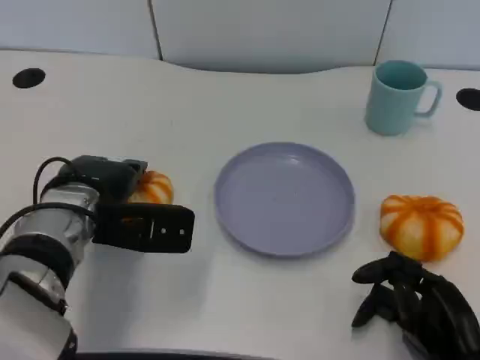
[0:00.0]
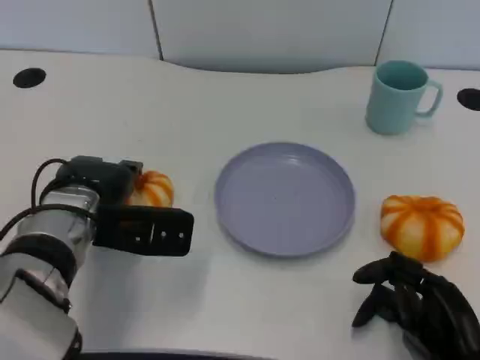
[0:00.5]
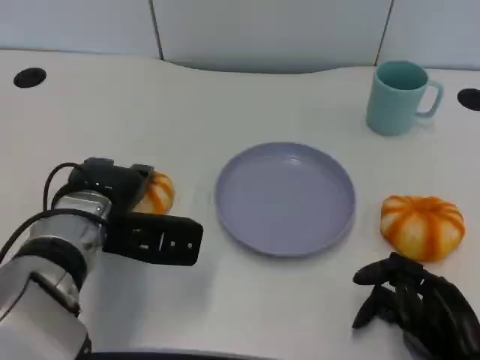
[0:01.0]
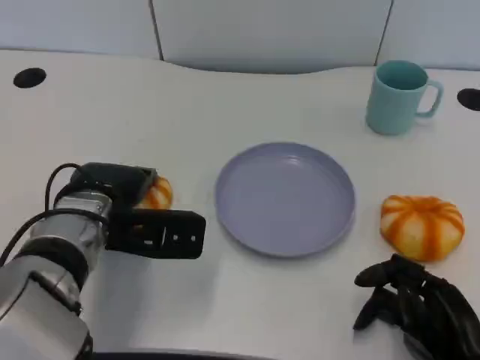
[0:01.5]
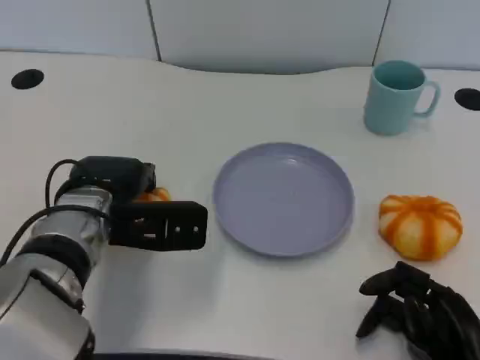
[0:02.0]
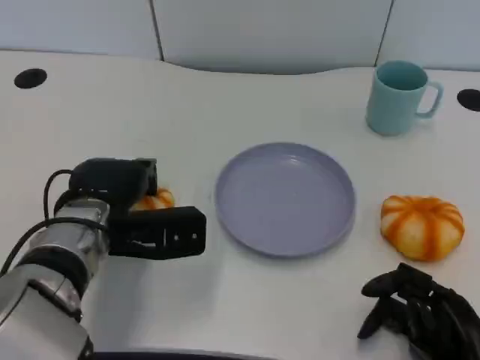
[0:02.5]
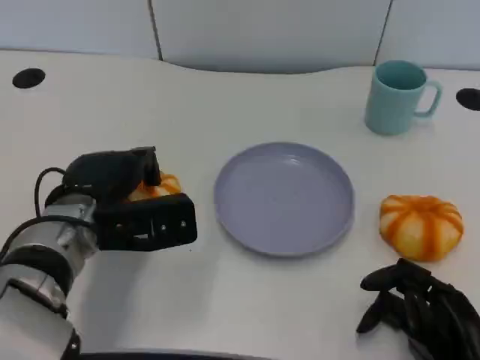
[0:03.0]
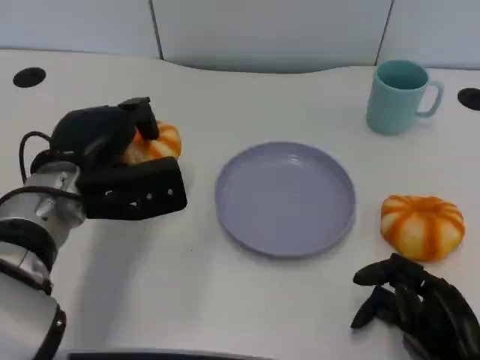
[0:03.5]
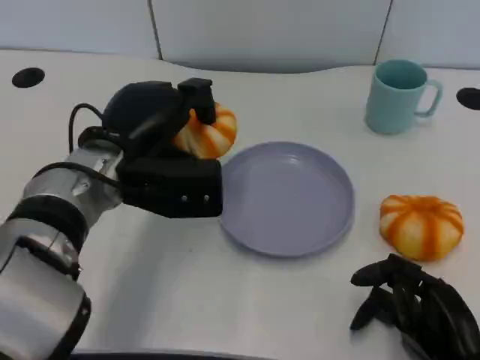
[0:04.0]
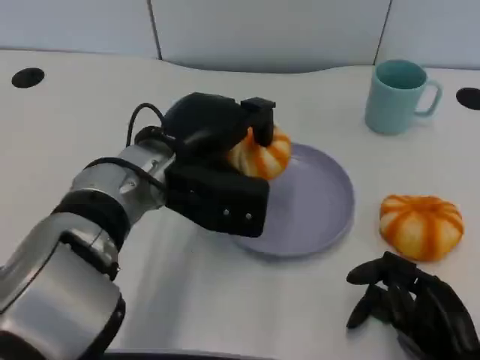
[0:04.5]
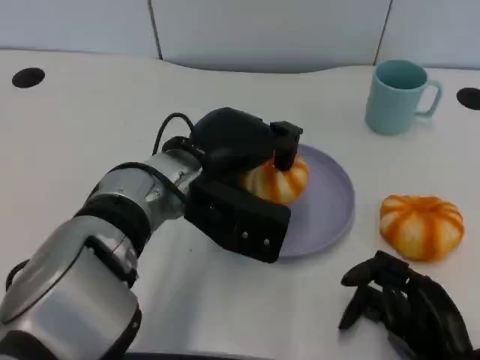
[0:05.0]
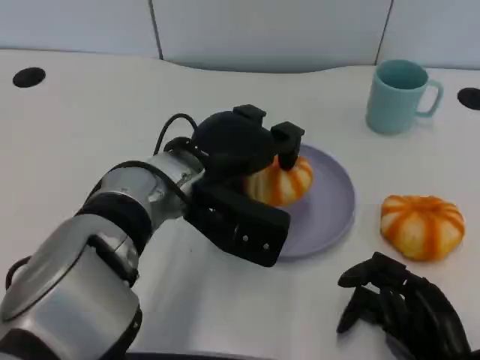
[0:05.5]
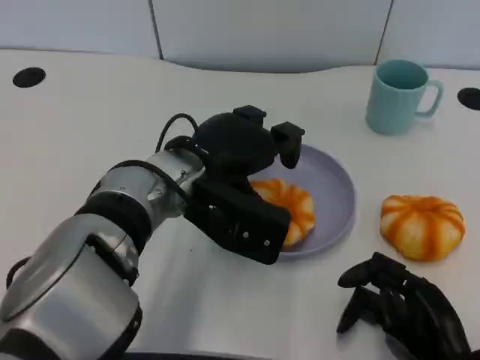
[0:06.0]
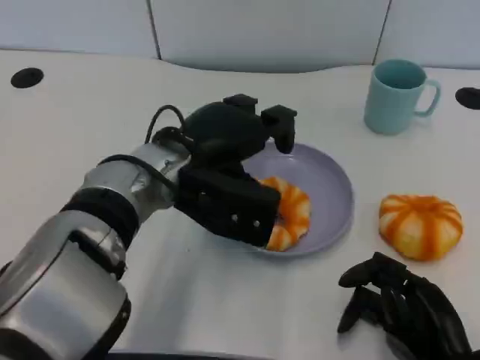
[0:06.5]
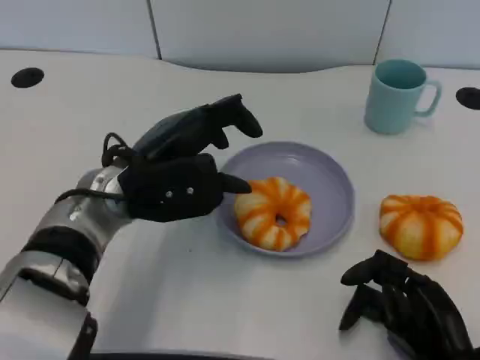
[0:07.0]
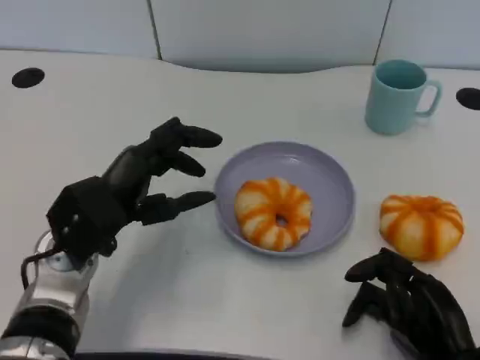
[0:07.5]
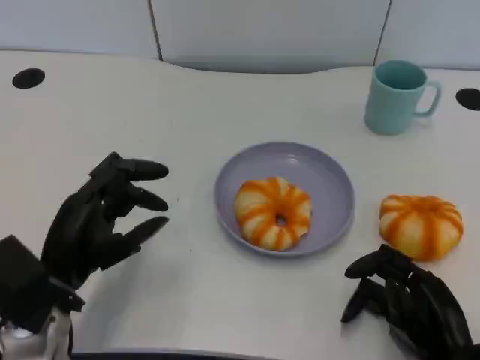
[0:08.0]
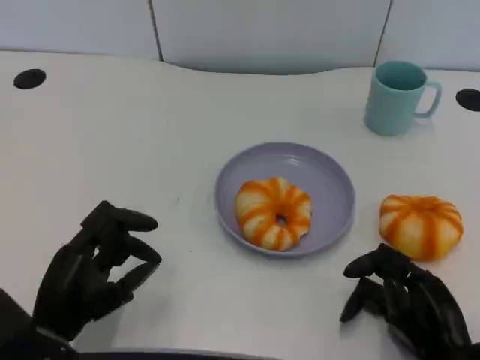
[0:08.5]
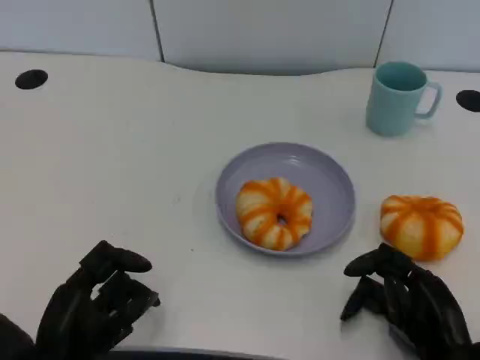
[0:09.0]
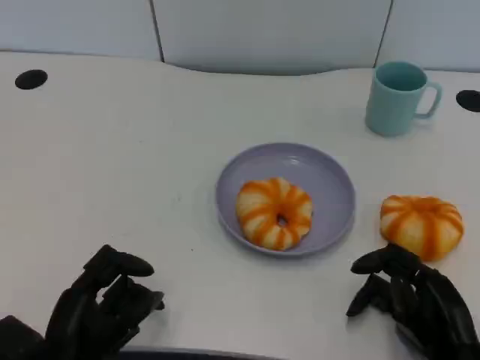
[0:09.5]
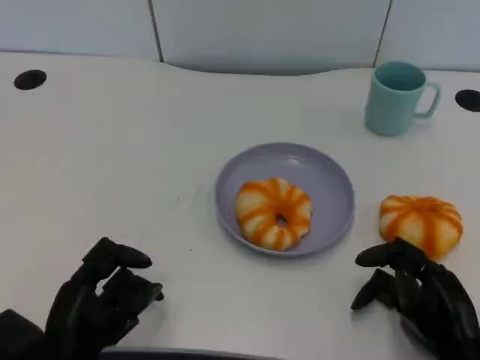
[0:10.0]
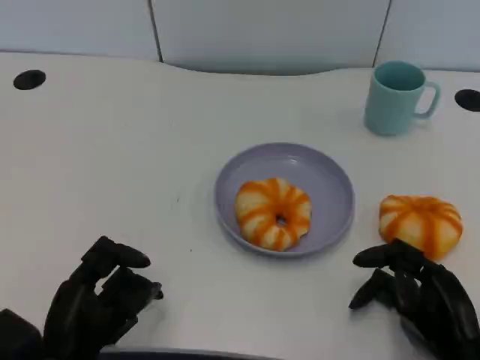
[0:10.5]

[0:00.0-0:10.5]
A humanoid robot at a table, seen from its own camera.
Task of the whole recording: Grasp the bread from the table and place it into the plate.
0:00.0 to 0:02.0: The hands make only small movements.
0:02.0 to 0:04.0: The left hand shifts by some 5 cm.
0:06.5 to 0:08.5: The left hand shifts about 20 cm to the left, backward and downward.
0:08.5 to 0:10.5: The hands stay close to where they were, moving slightly.

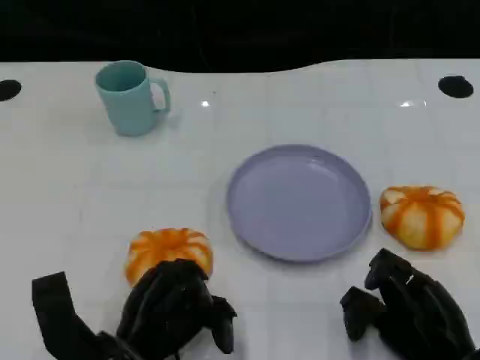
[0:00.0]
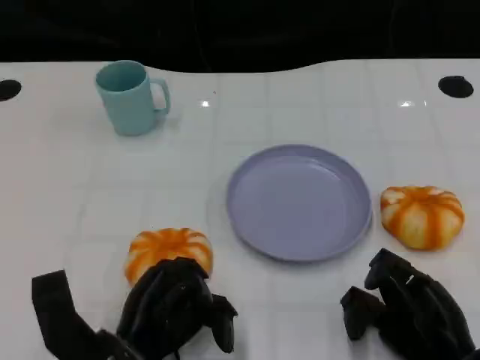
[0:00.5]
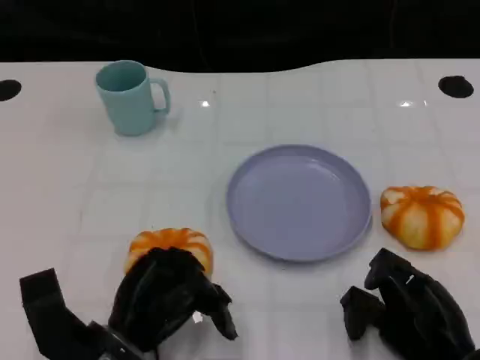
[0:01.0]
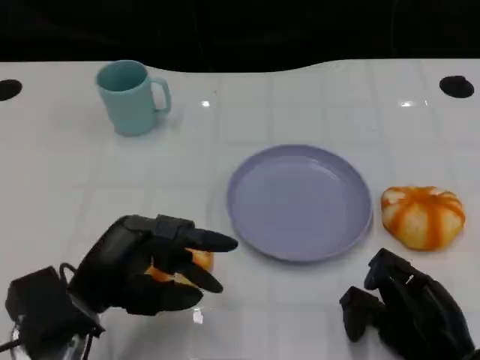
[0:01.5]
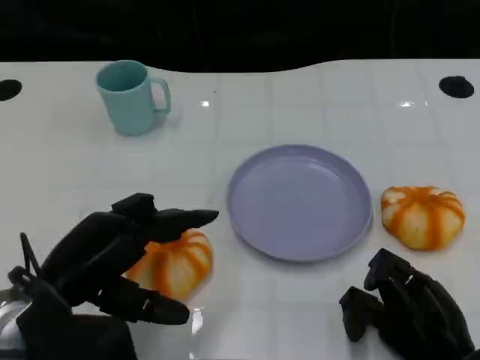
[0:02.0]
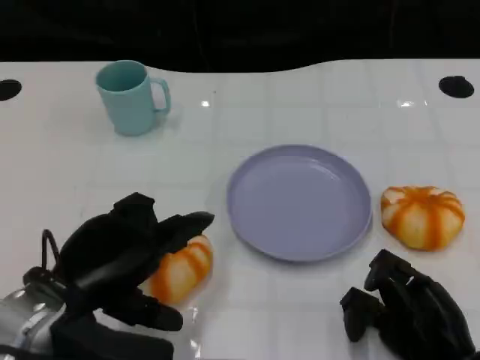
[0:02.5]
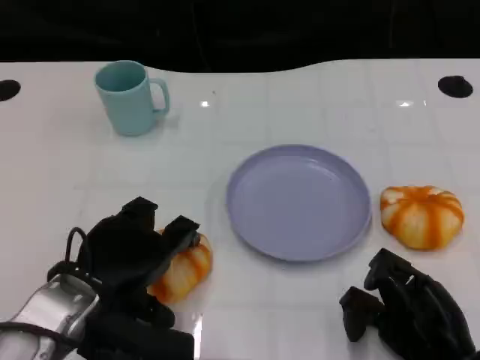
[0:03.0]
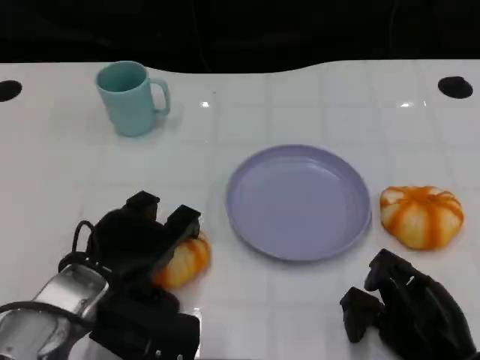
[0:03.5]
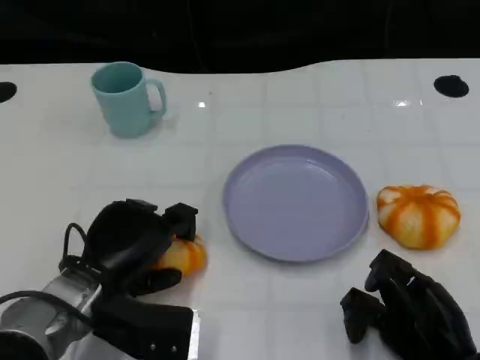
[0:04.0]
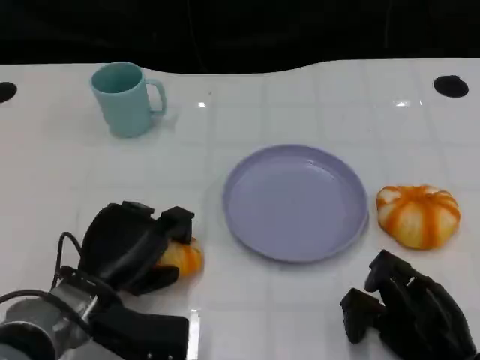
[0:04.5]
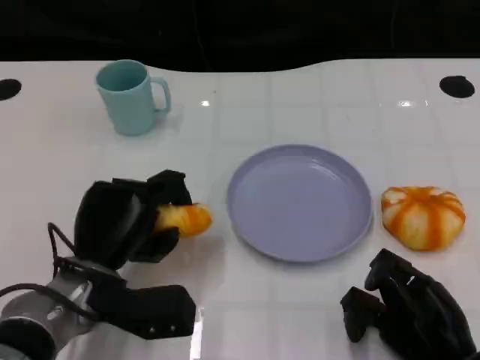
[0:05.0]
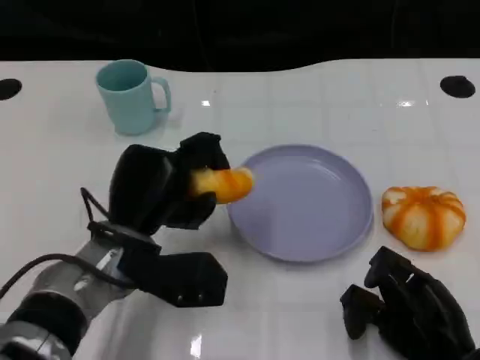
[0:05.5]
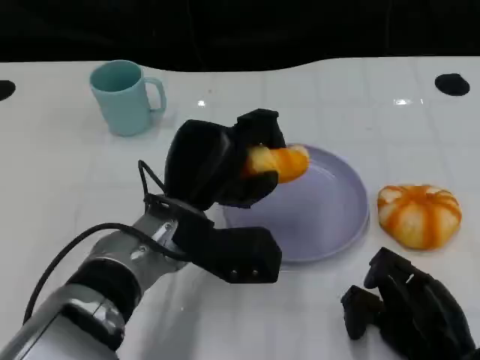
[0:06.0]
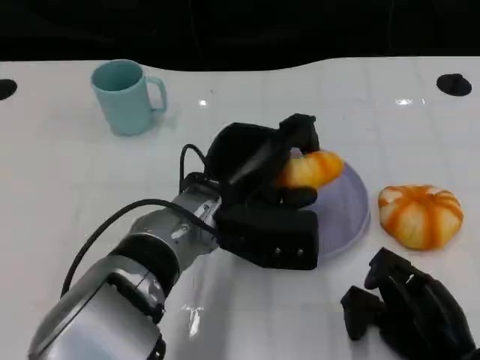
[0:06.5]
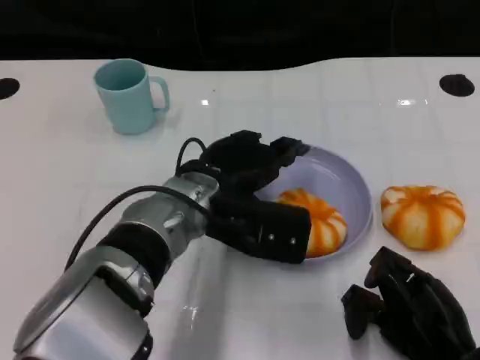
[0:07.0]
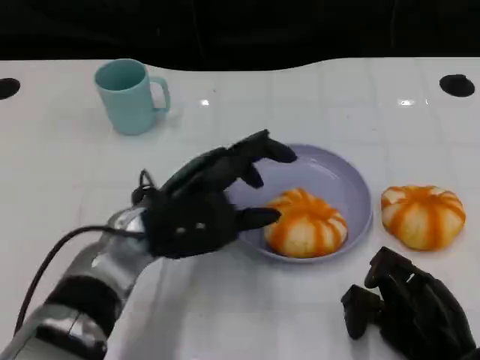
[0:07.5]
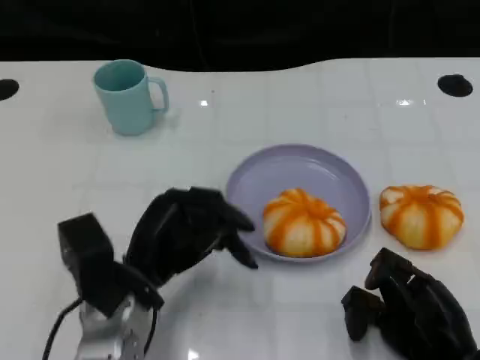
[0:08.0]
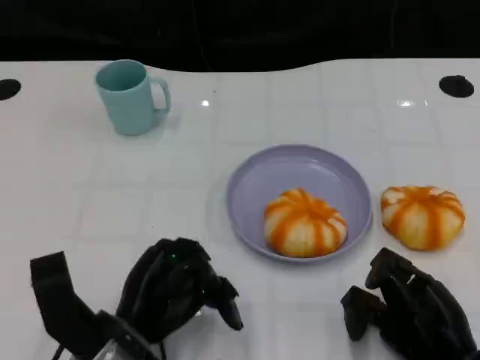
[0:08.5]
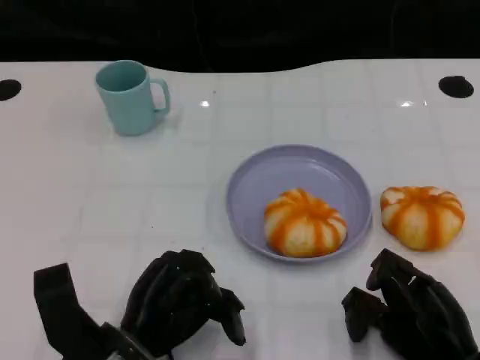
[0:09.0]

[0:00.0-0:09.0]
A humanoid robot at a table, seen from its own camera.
Task of the whole recording: Grasp the bread from the table and place it into the plate.
0:00.0 to 0:02.0: The left hand heads upward and to the left, covering about 10 cm.
0:02.0 to 0:04.5: The left hand shifts about 10 cm downward.
0:04.5 to 0:07.0: The left hand heads to the right, upward and forward, covering roughly 15 cm.
0:07.0 to 0:09.0: The left hand is displaced backward, downward and to the left by approximately 15 cm.

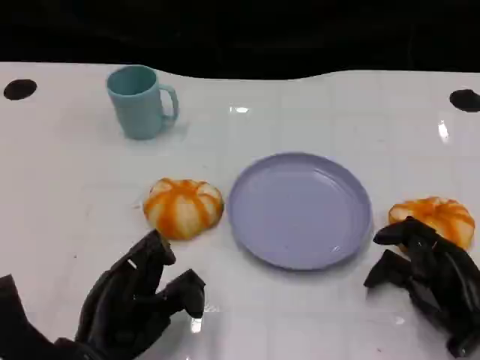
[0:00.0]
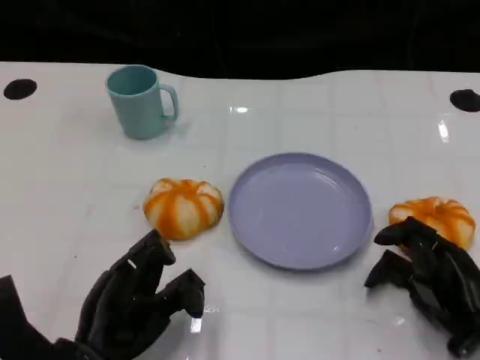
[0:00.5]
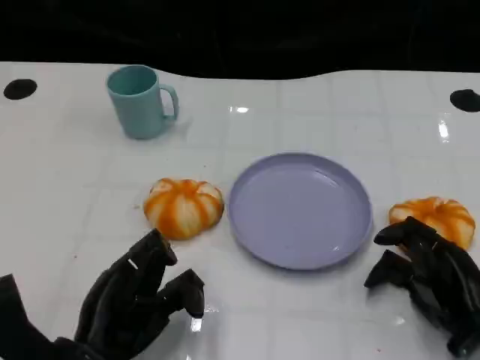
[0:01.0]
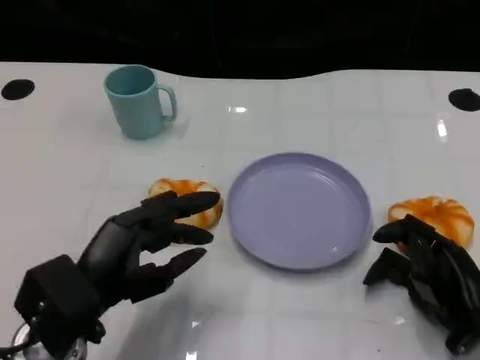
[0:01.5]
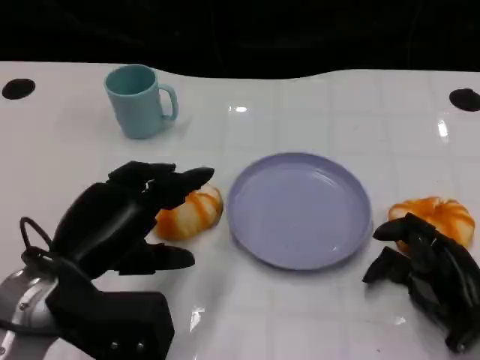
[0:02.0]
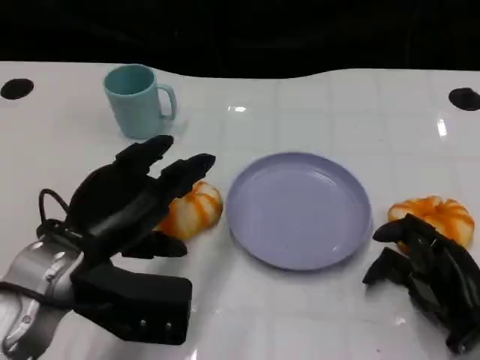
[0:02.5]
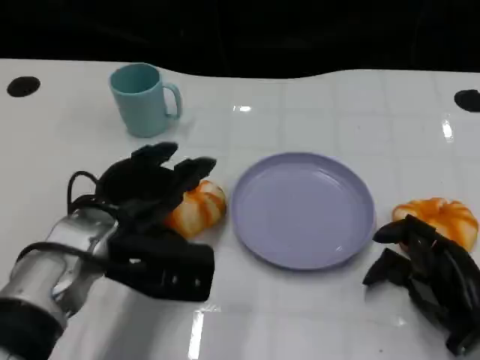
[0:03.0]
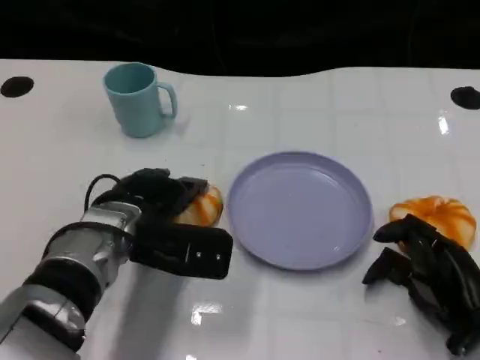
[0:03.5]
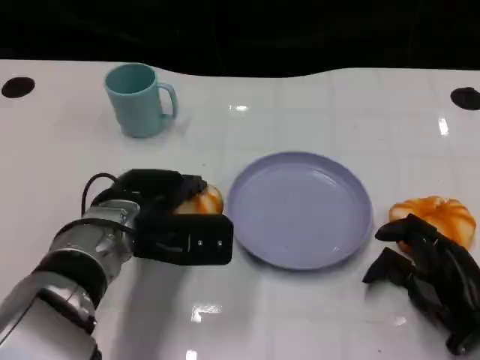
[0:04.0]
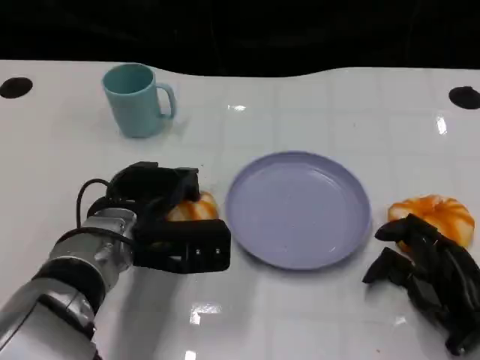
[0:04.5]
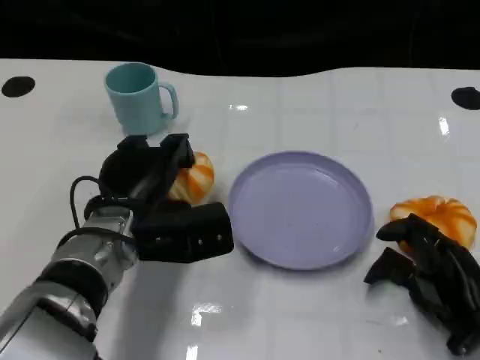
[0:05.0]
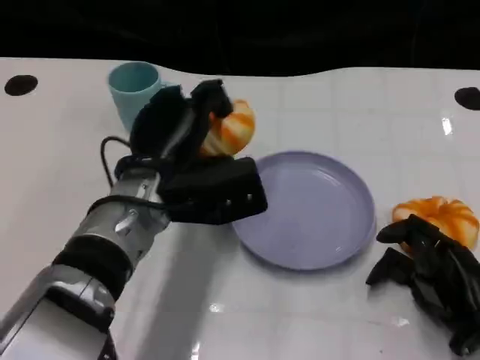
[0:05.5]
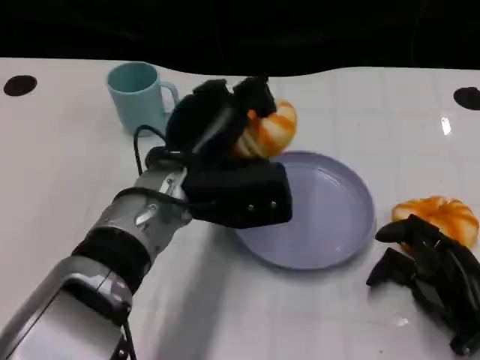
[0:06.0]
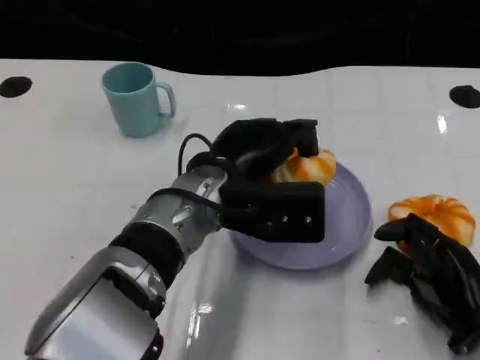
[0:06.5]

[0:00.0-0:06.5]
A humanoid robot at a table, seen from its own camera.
Task of the whole recording: Grasp the bread from the table and place it into the plate.
0:00.0 to 0:02.0: The left hand travels upward by some 10 cm.
0:02.0 to 0:04.5: The left hand heads forward and to the right, covering about 10 cm.
0:04.5 to 0:06.5: The left hand shifts approximately 10 cm to the right and upward.
